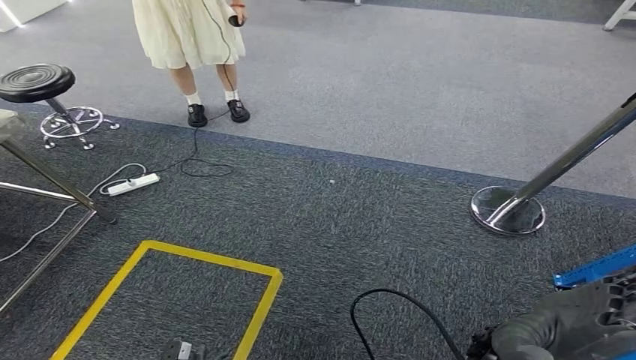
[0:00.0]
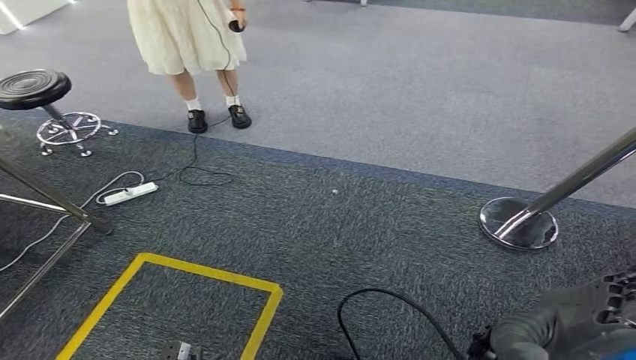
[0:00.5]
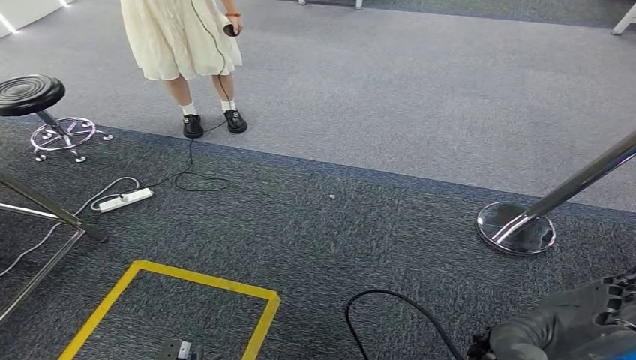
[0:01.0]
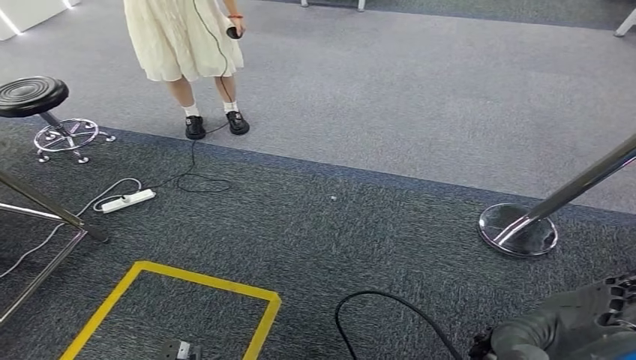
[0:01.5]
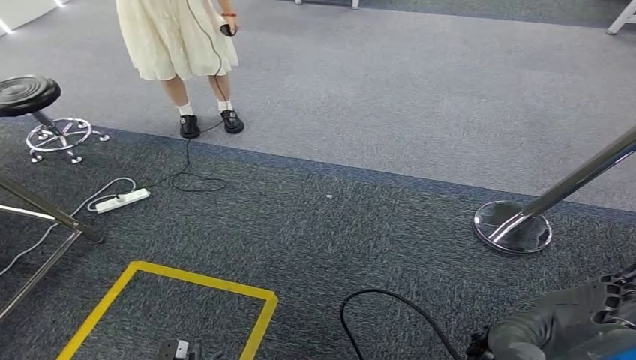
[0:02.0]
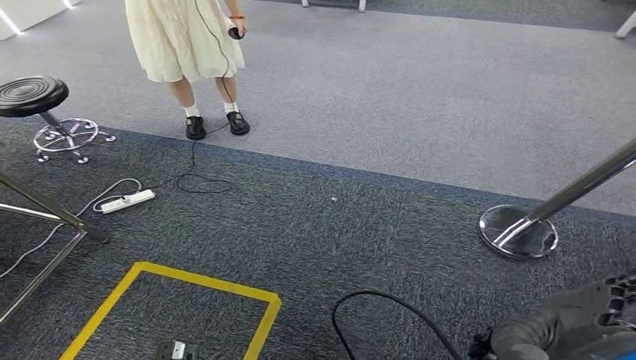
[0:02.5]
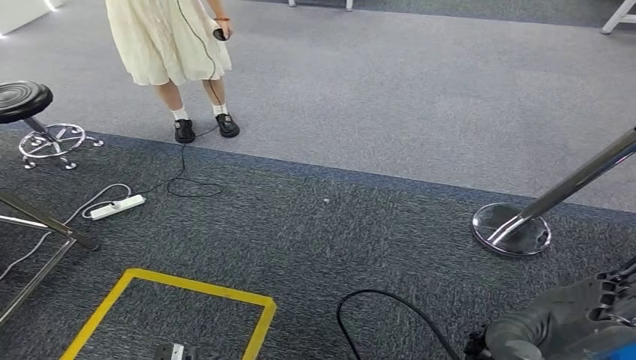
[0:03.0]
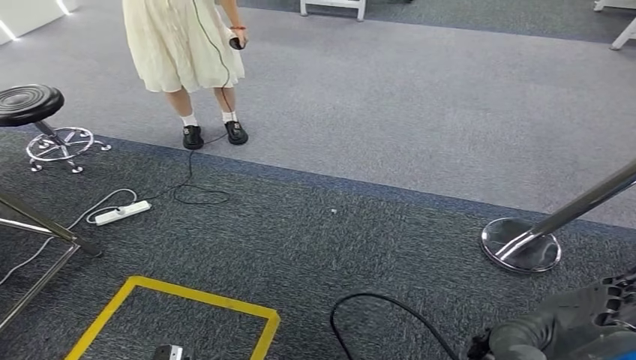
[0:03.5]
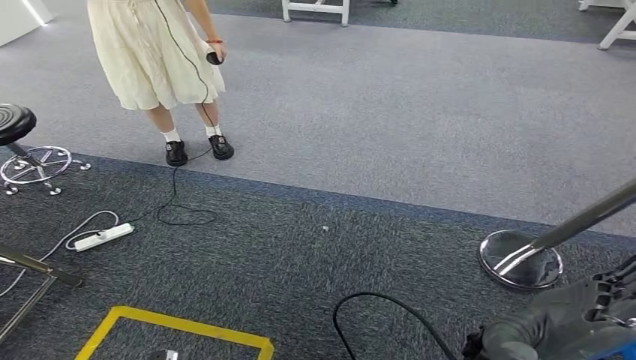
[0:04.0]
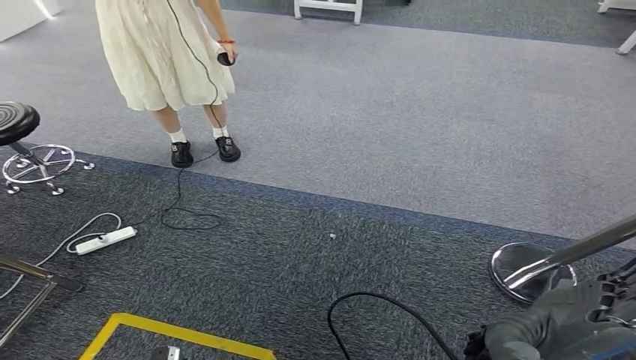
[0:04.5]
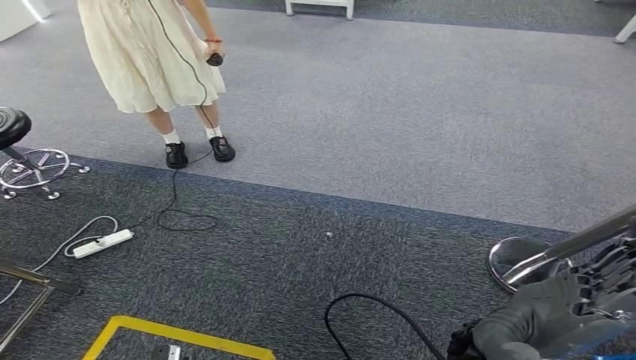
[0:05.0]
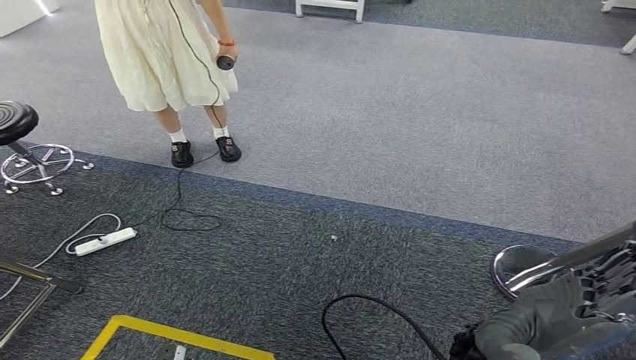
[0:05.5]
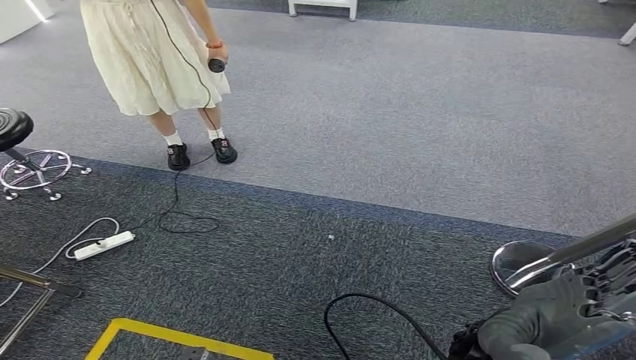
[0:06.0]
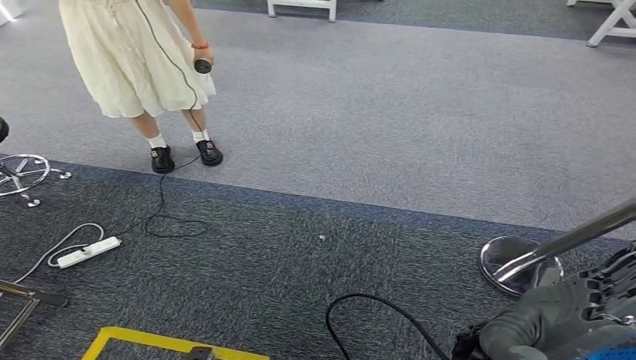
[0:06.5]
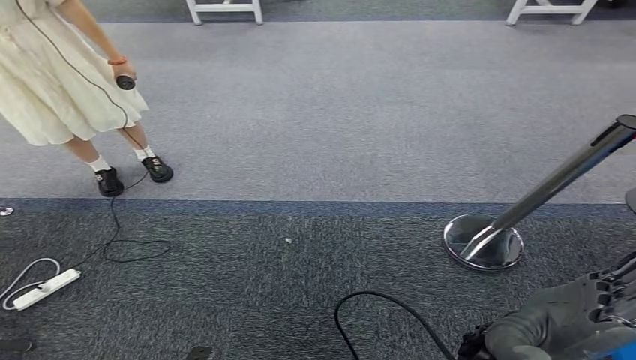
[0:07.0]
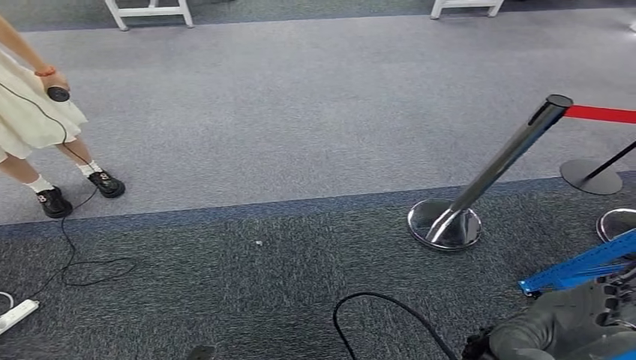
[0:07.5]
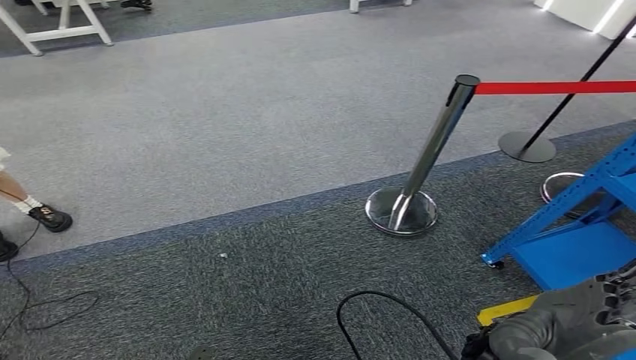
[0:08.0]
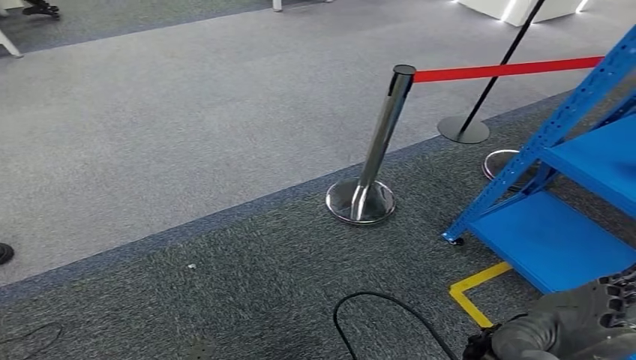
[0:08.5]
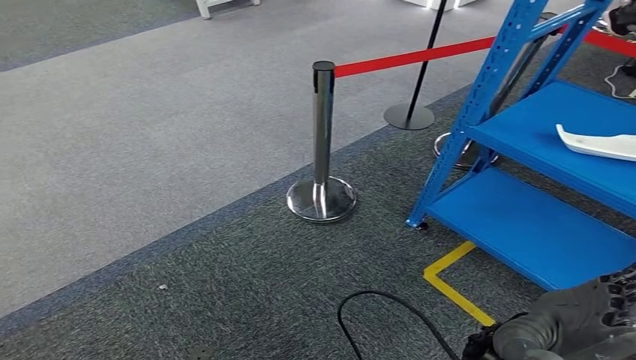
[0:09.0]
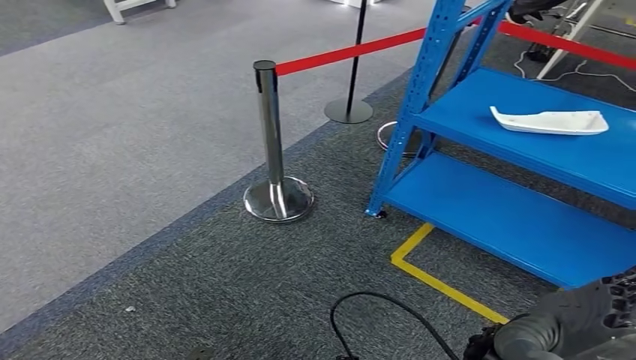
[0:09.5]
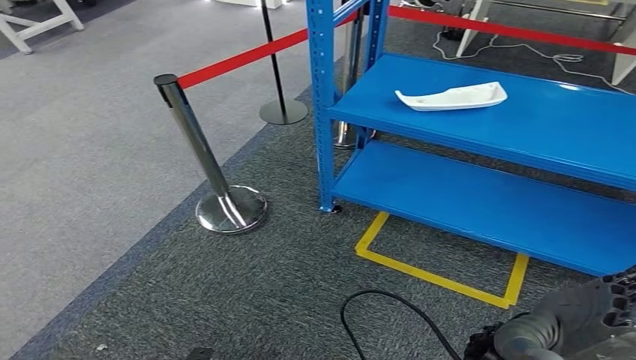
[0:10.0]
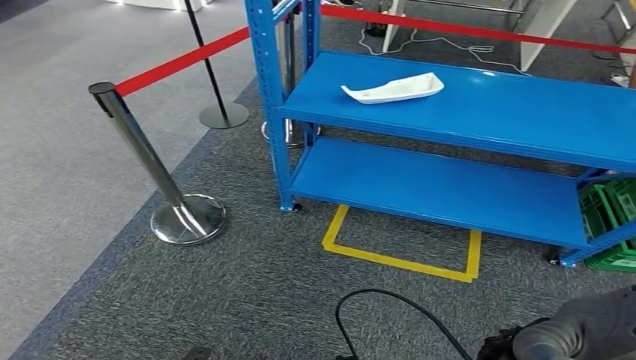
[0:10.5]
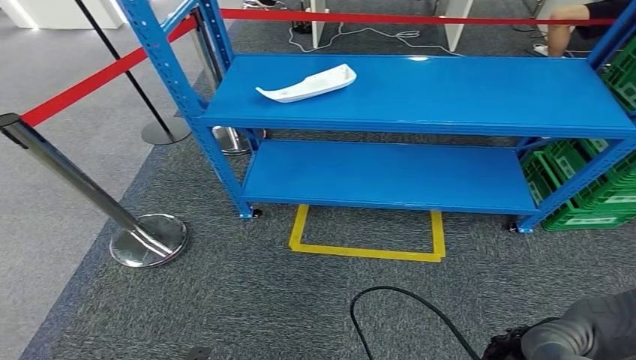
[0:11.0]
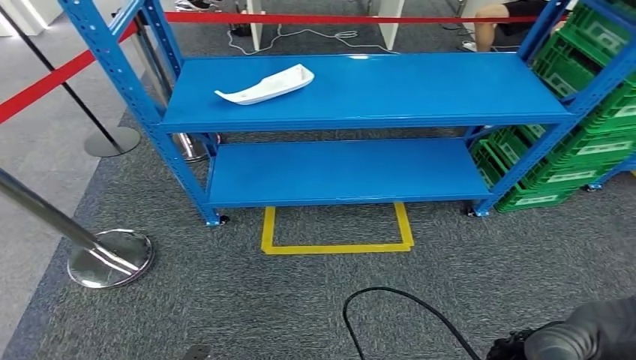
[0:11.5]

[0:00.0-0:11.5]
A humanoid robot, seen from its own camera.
0:00.0 to 0:02.0: The hands move only a little.

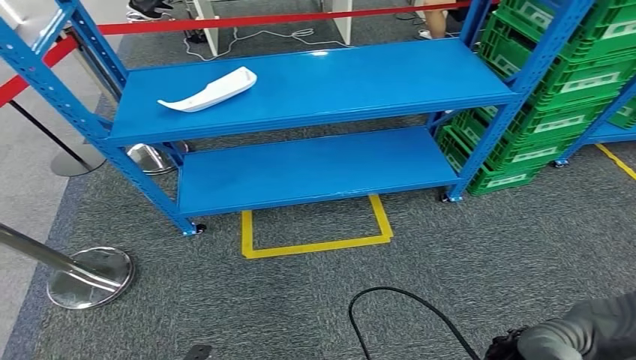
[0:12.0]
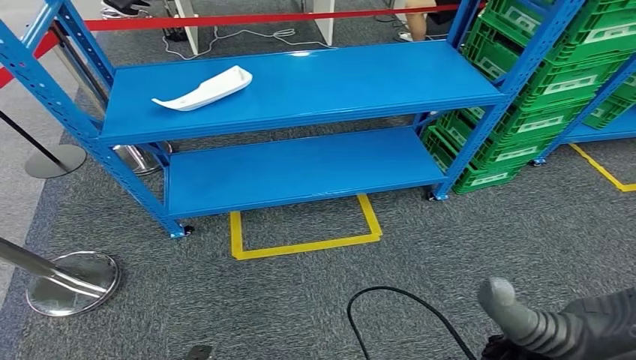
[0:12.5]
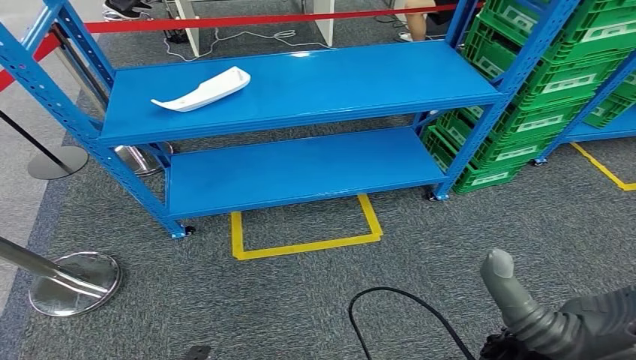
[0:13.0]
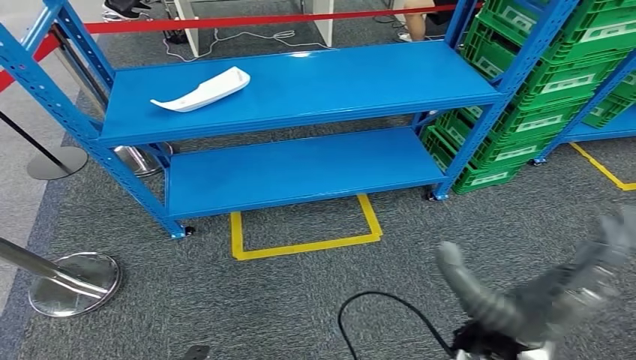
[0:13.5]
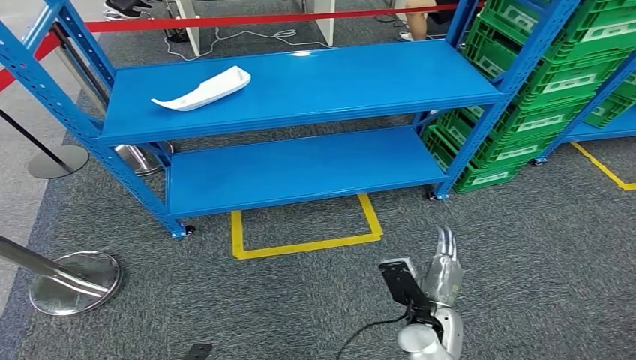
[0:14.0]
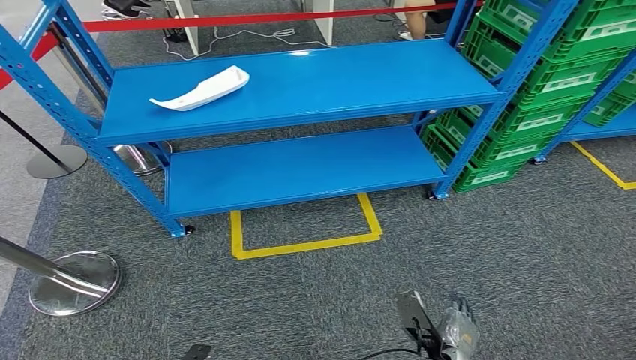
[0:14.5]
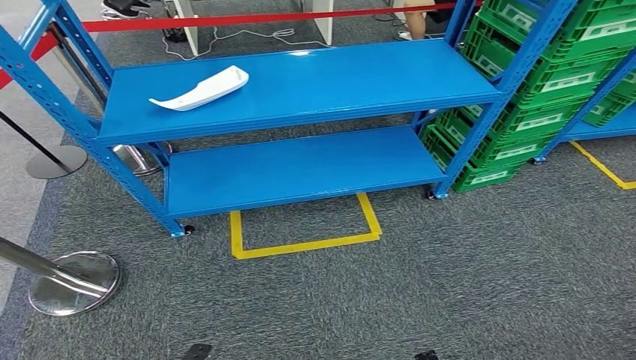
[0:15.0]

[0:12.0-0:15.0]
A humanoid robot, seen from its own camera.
Step, 0:12.0 to 0:15.0: Move to the initial position at the workbench.
0:13.5 to 0:15.0: The right hand goes roughly 30 cm downward.
